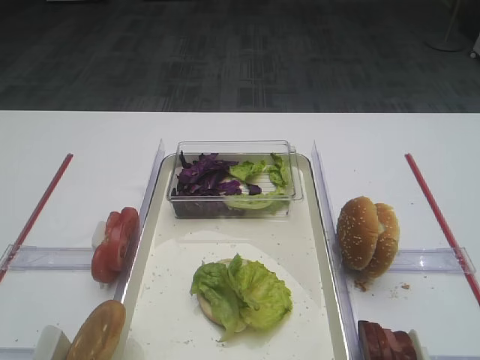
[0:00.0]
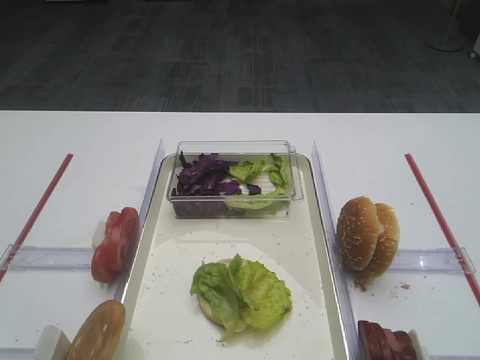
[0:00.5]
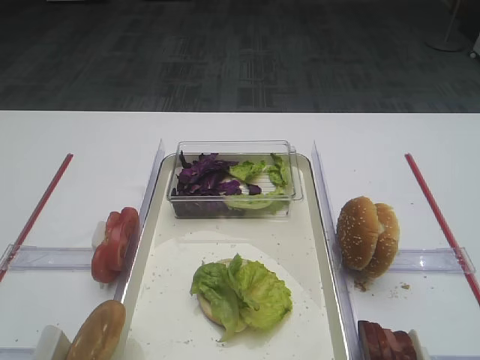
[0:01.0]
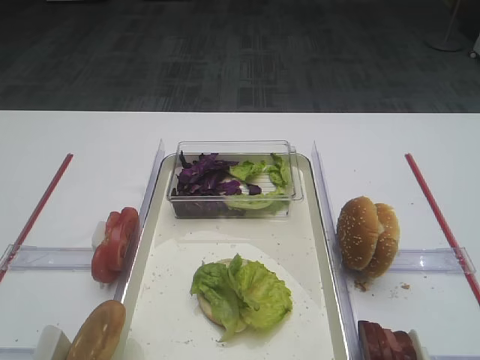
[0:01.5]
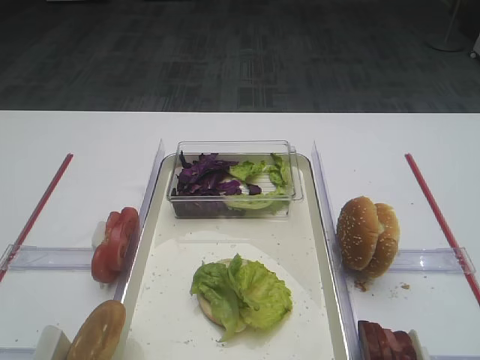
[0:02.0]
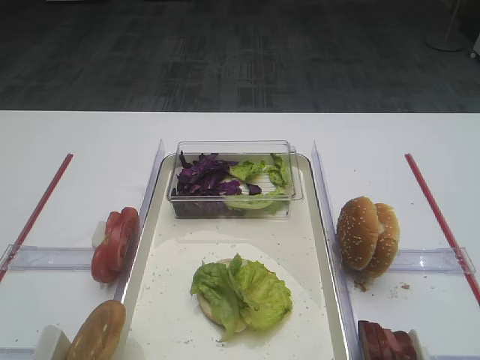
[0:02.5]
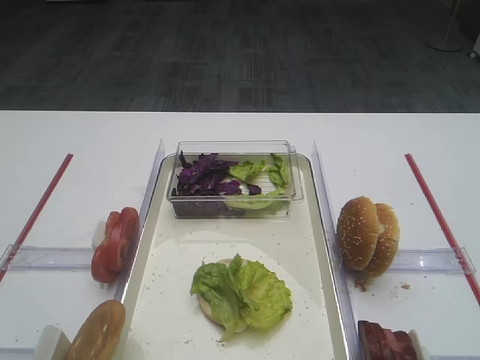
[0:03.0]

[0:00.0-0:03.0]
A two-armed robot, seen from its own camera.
0:00.0 to 0:03.0: Both grippers stay put.

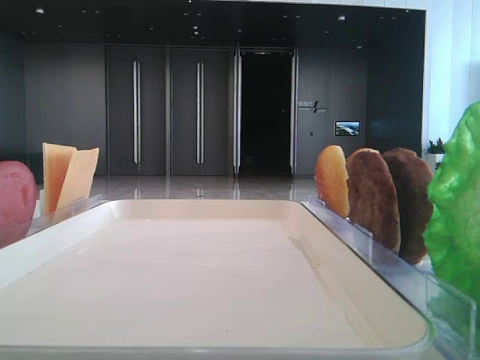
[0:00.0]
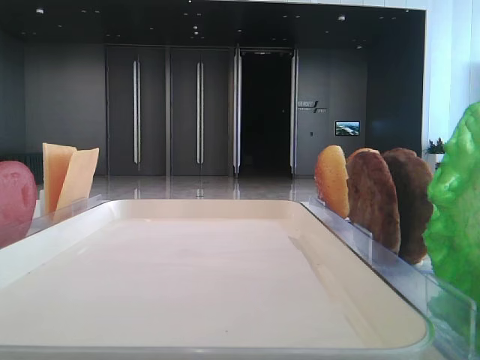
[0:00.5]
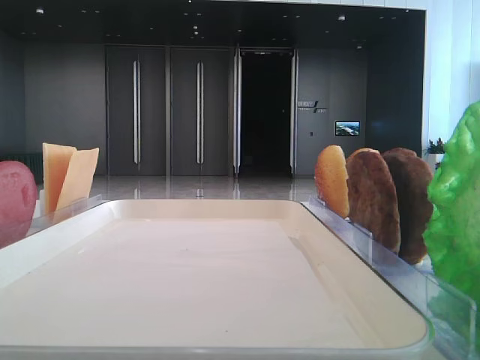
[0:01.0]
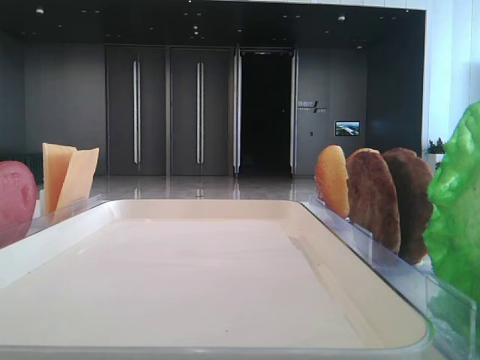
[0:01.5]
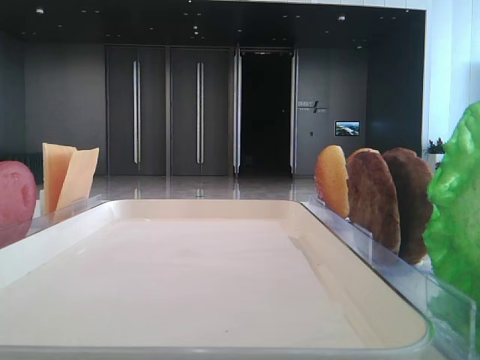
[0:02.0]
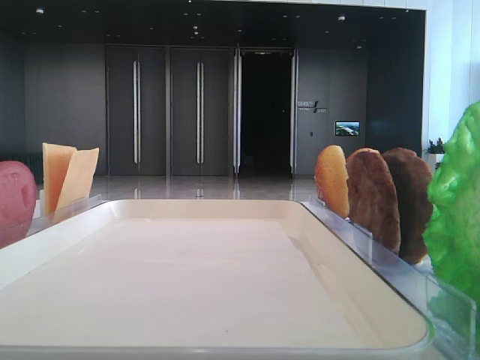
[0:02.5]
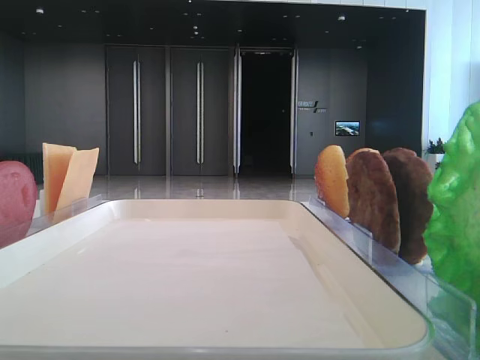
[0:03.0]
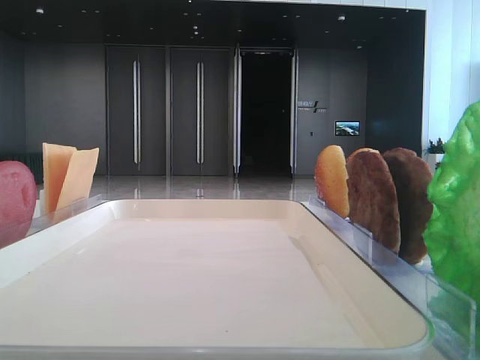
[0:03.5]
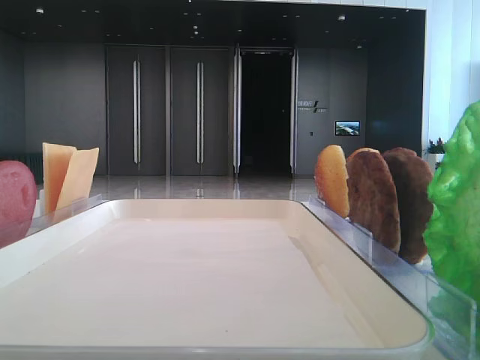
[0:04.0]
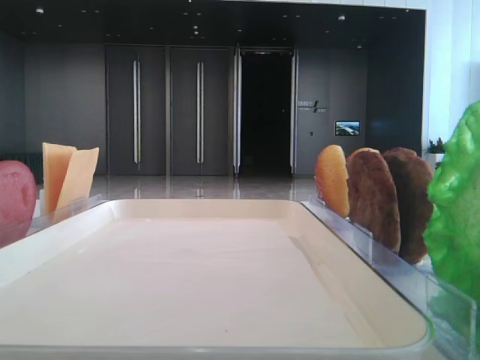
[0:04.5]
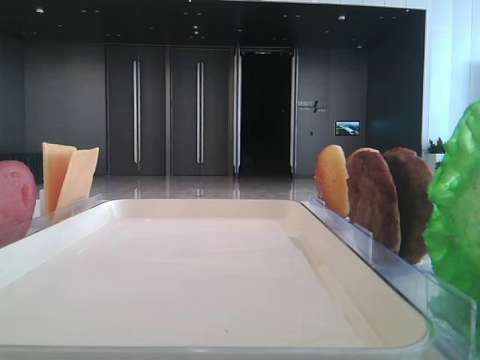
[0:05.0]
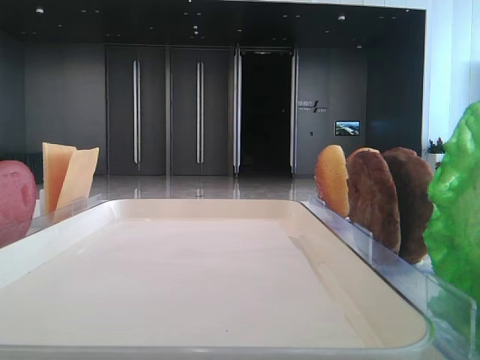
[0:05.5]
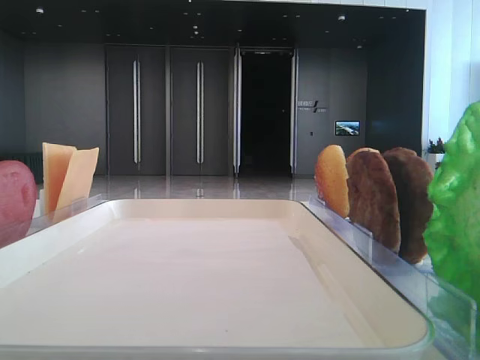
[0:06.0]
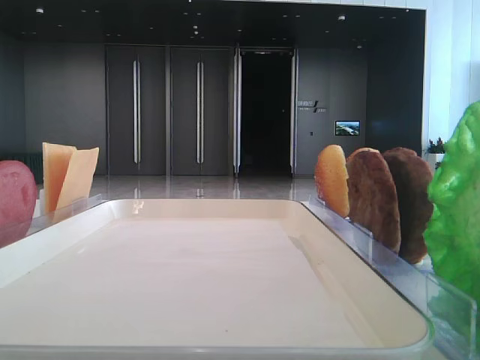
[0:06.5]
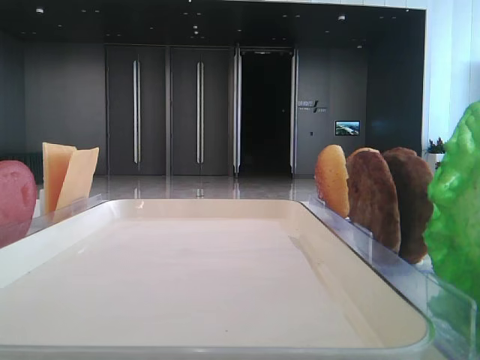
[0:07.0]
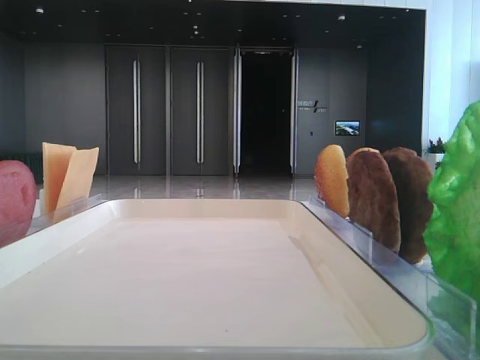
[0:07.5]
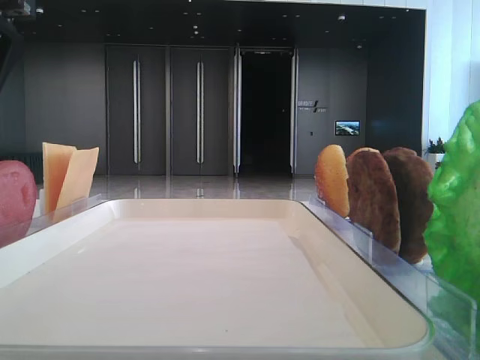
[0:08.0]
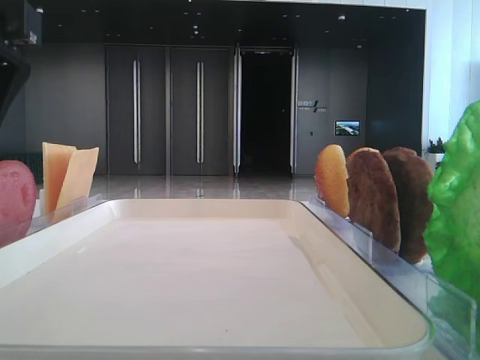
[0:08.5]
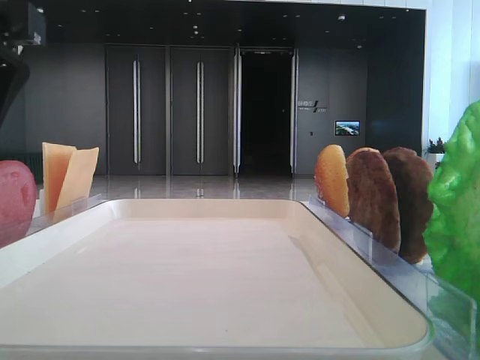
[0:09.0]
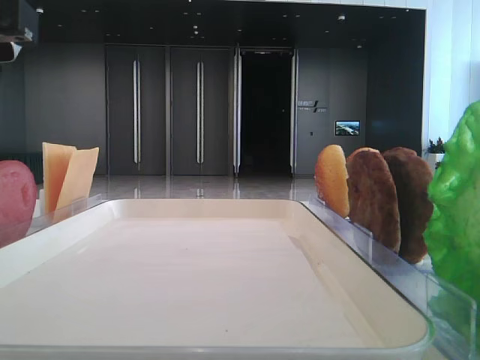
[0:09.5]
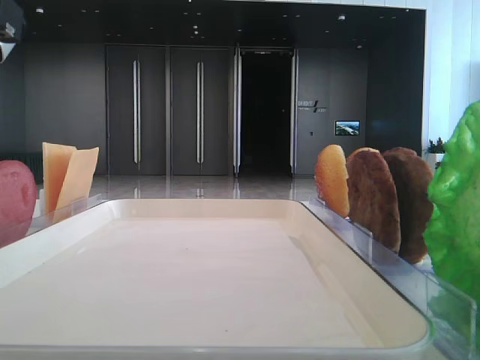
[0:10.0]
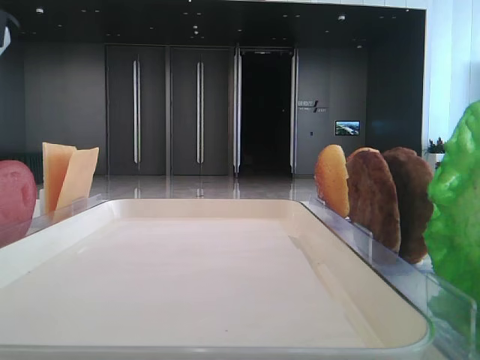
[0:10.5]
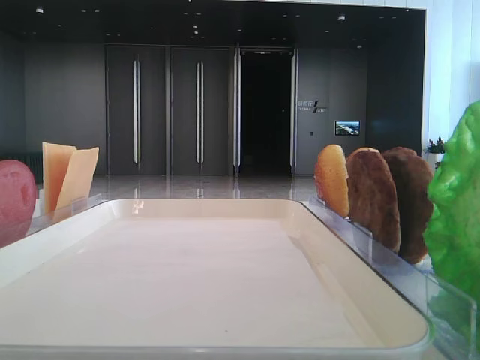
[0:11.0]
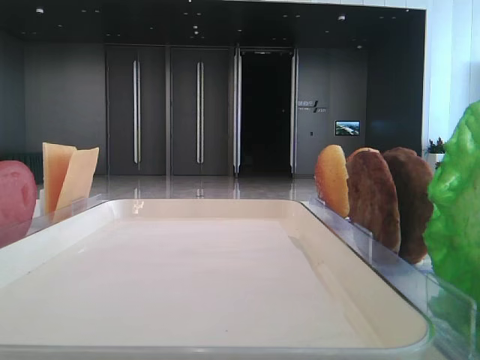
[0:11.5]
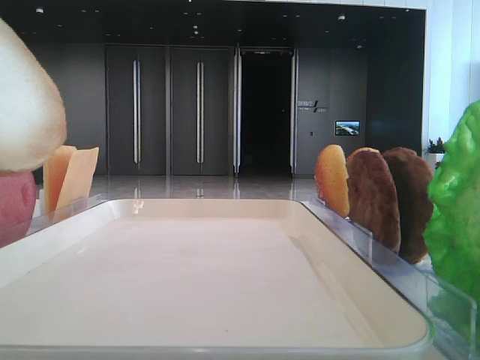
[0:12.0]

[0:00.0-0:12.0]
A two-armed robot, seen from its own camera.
0:10.0 to 0:12.0: The left gripper heads upward, covering some 5 cm.

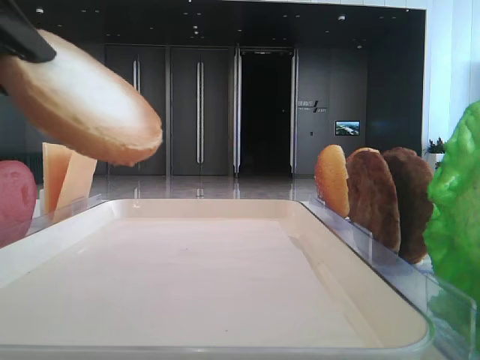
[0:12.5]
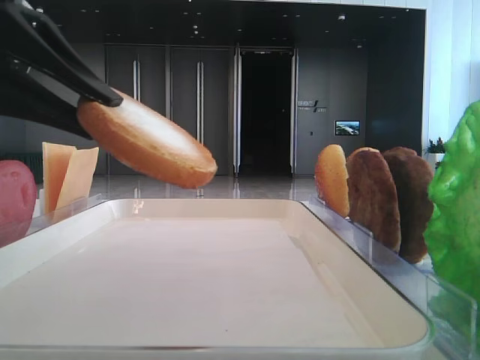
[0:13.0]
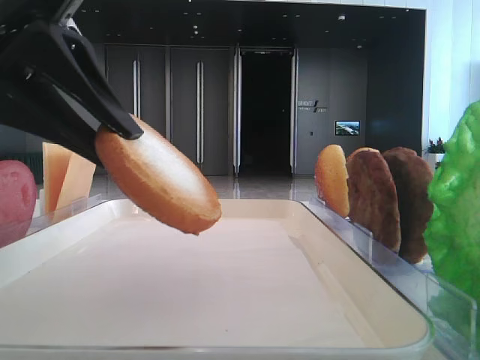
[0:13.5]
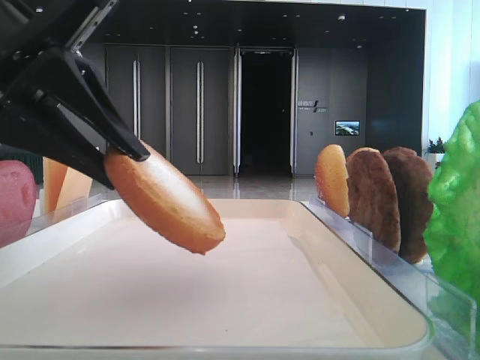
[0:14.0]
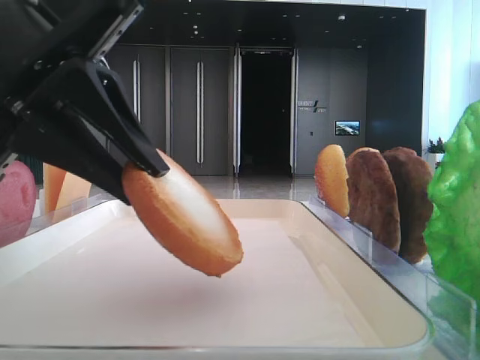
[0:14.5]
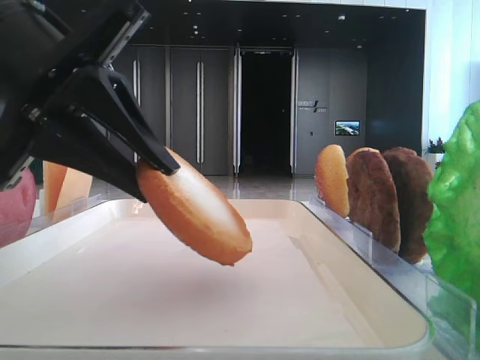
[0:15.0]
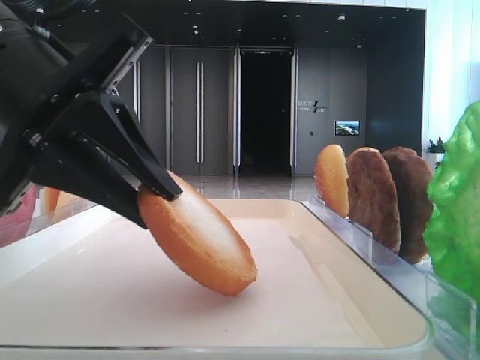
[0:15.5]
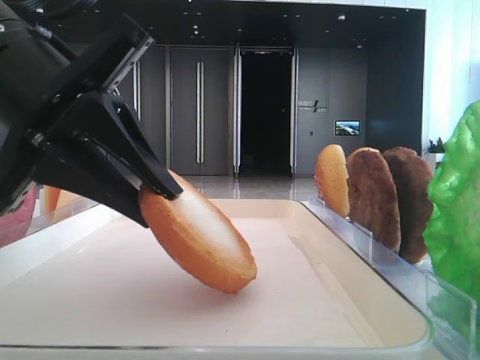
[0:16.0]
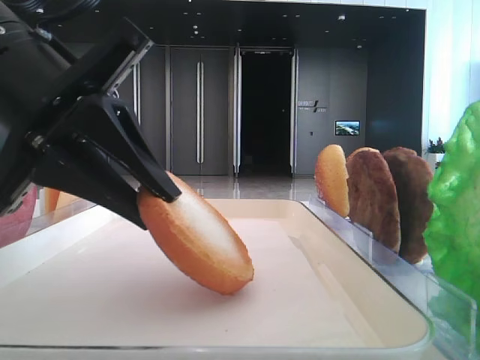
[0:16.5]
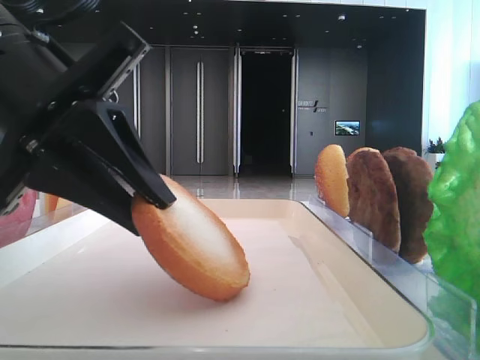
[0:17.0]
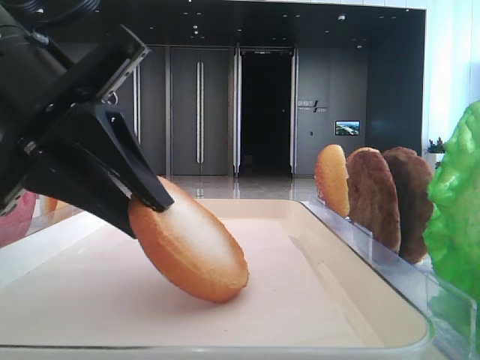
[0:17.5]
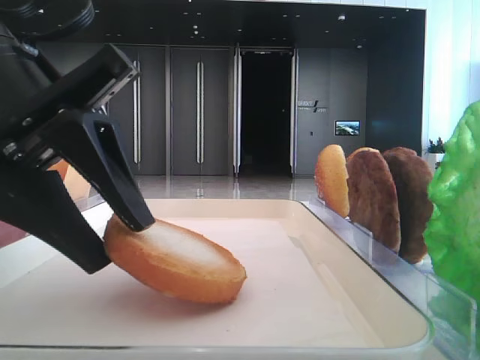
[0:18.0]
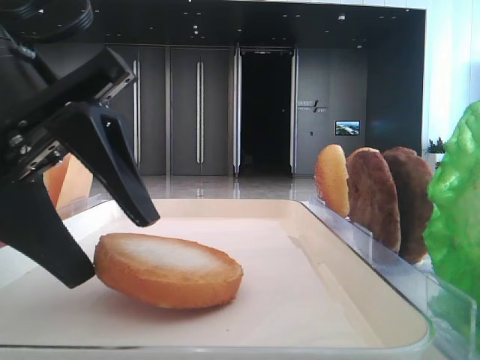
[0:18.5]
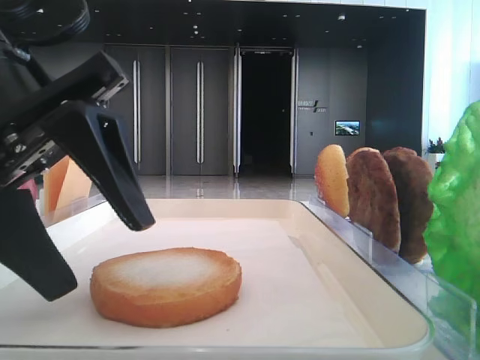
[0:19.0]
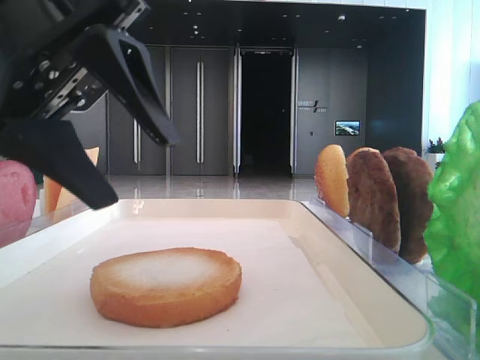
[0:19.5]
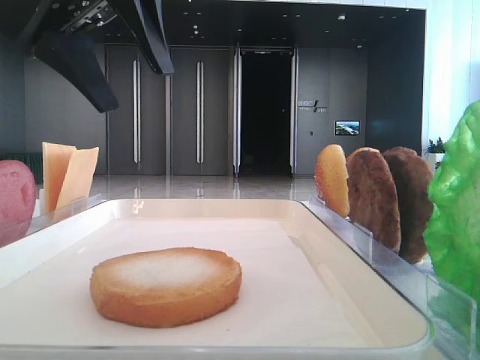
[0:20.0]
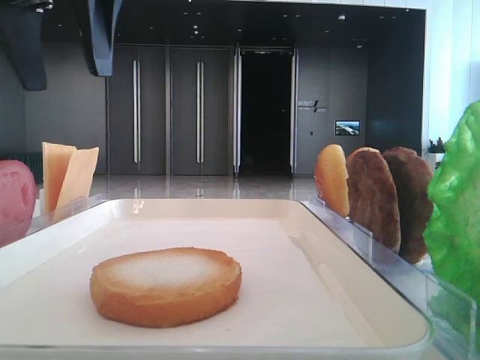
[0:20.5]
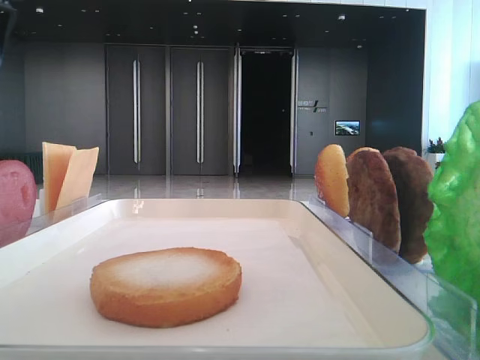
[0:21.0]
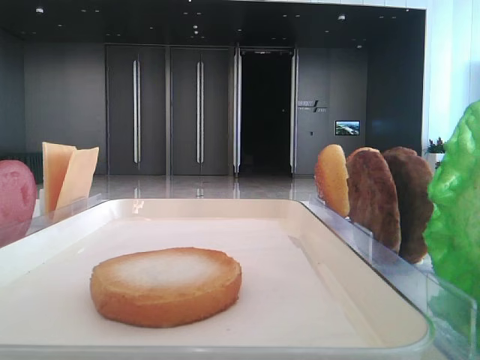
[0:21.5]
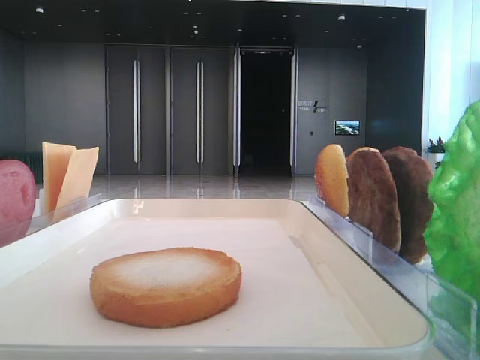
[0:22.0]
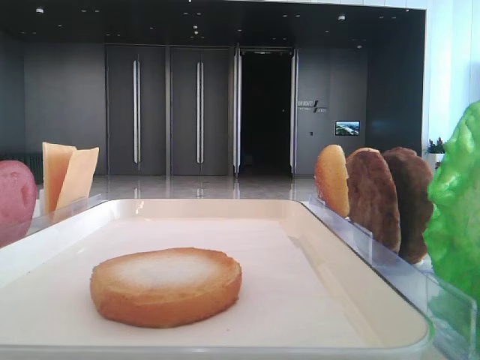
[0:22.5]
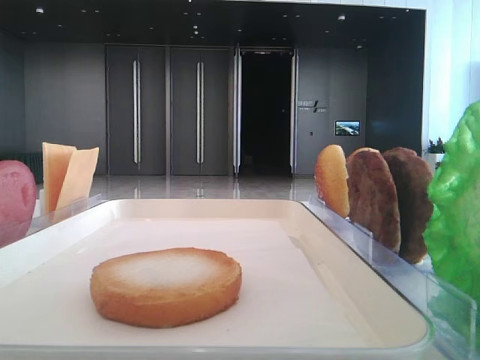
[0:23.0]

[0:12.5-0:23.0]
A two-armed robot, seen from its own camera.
Step, 0:12.5 to 0:18.5: Place the bread on the tray with the left hand.
0:12.5 to 0:14.5: The left gripper heads to the right and downward, covering some 10 cm.
0:14.5 to 0:16.5: The grippers make only small movements.
0:16.5 to 0:19.0: The left gripper opens its fingers.
0:19.0 to 0:21.0: The left gripper goes roughly 25 cm upward, to the left and forward.

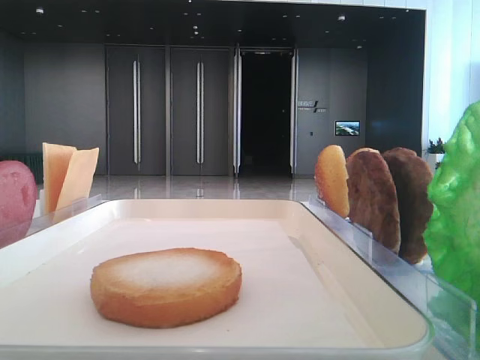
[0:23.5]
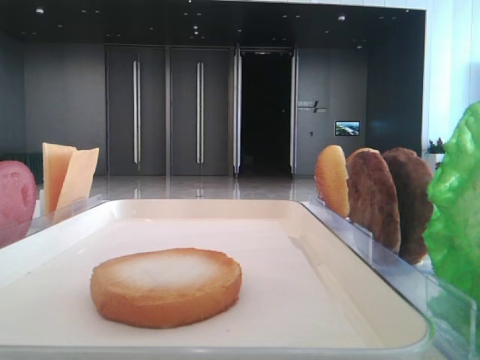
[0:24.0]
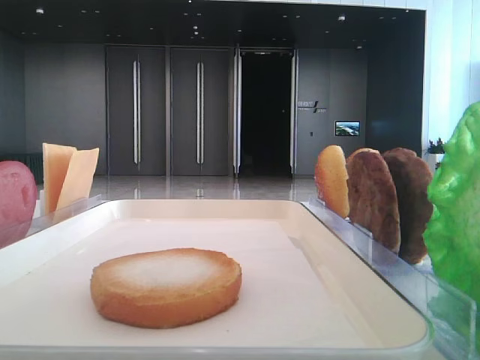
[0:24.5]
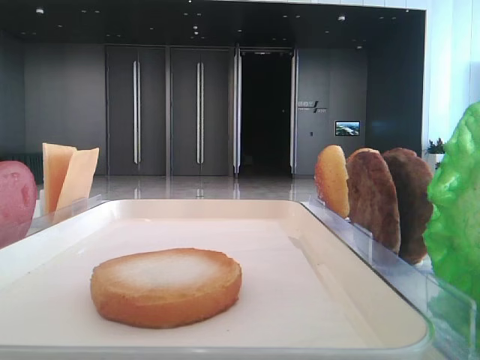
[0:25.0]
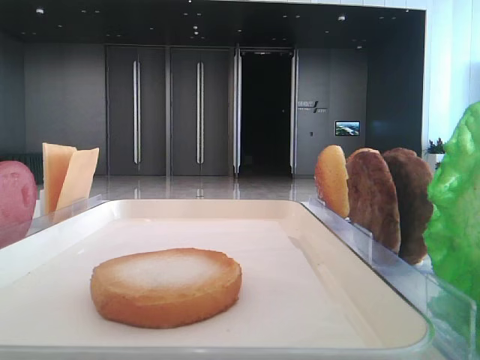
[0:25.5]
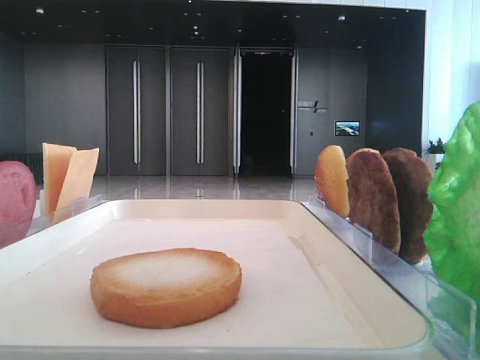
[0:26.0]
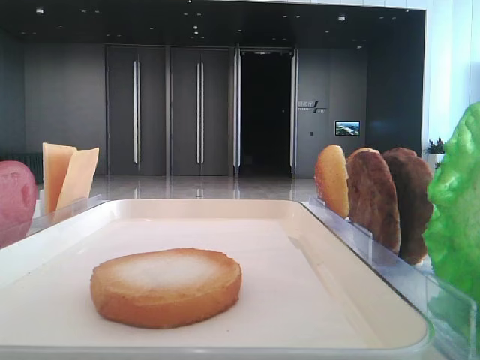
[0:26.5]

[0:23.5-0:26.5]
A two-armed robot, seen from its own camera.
0:25.0 to 0:26.5: Both grippers stay about where they are.
